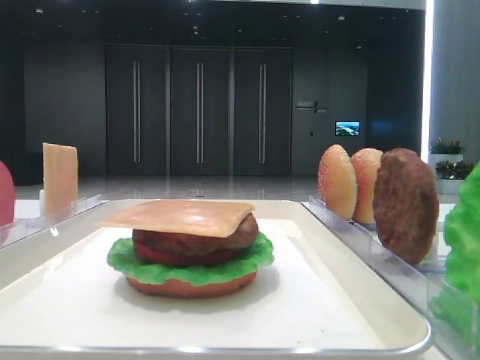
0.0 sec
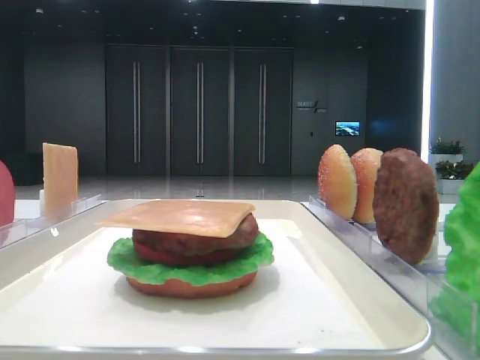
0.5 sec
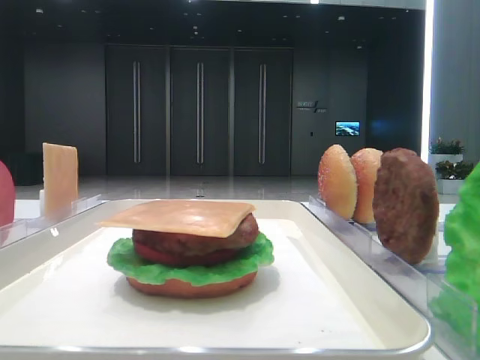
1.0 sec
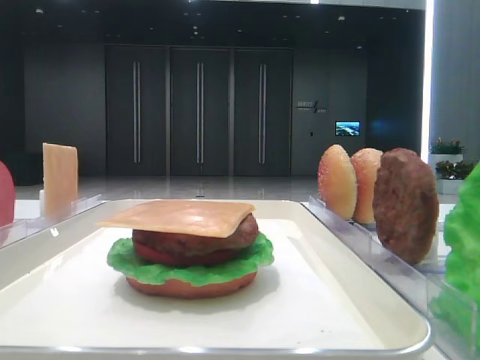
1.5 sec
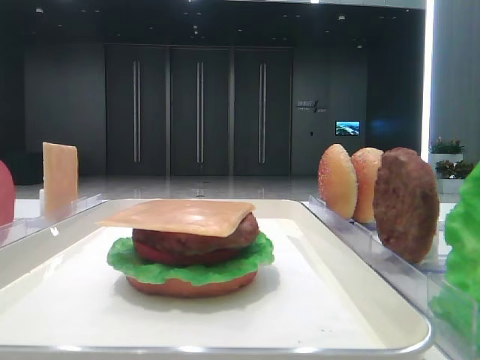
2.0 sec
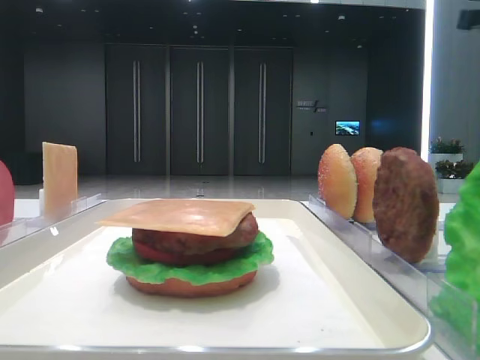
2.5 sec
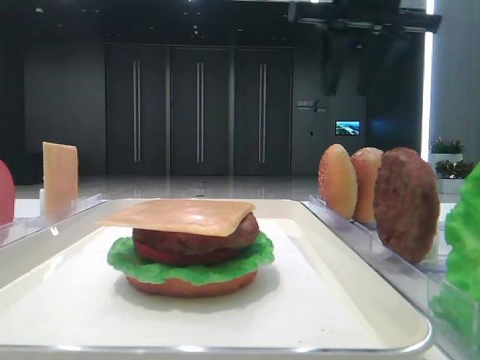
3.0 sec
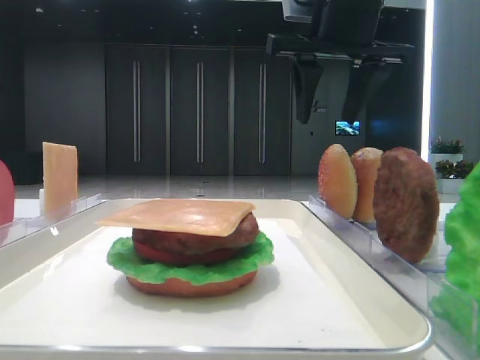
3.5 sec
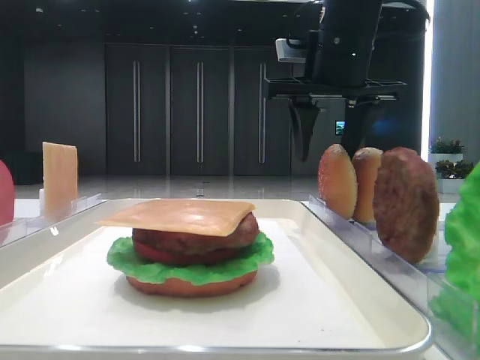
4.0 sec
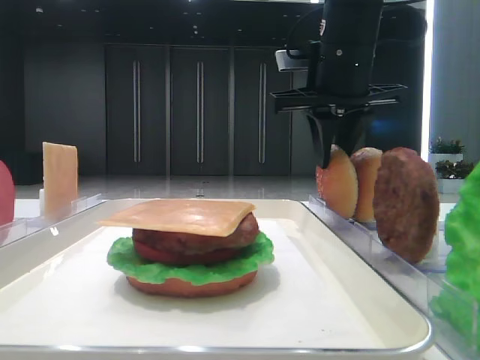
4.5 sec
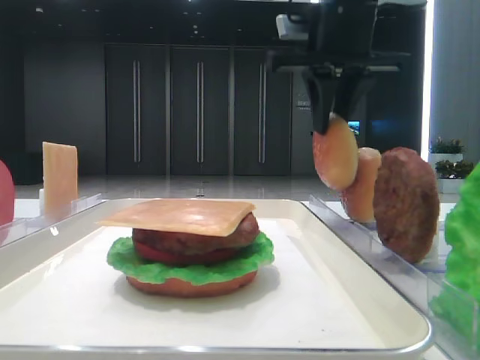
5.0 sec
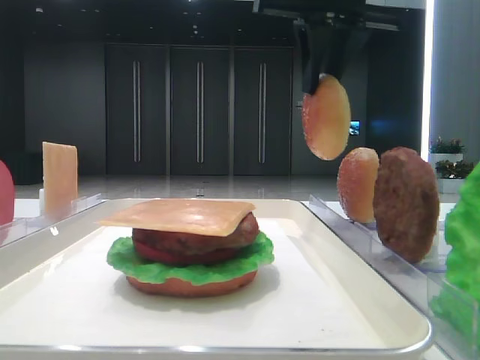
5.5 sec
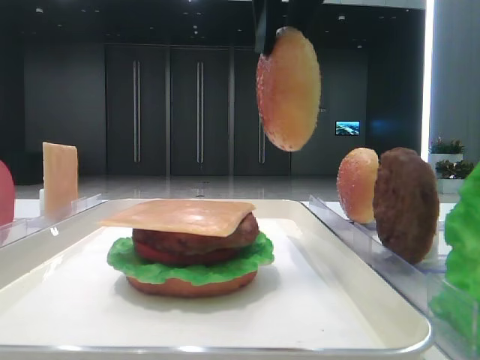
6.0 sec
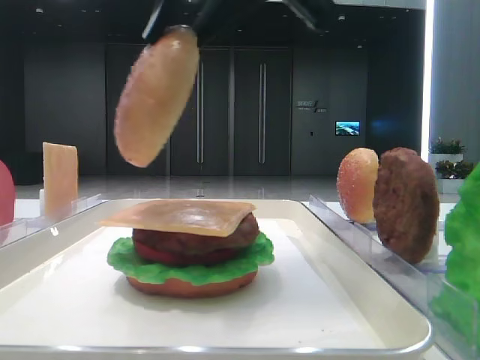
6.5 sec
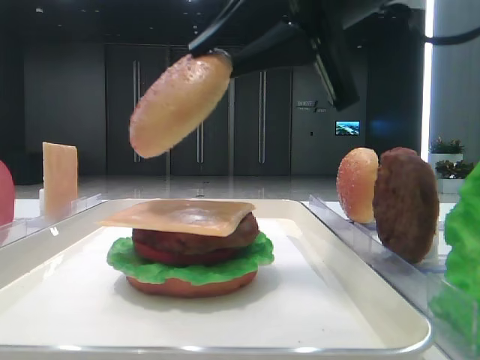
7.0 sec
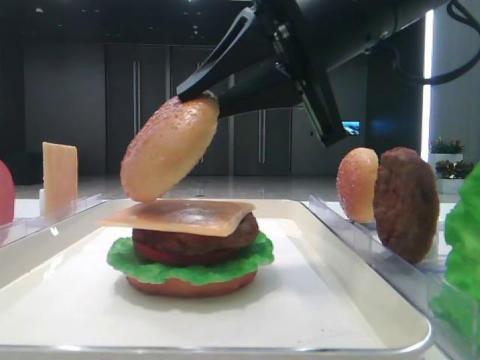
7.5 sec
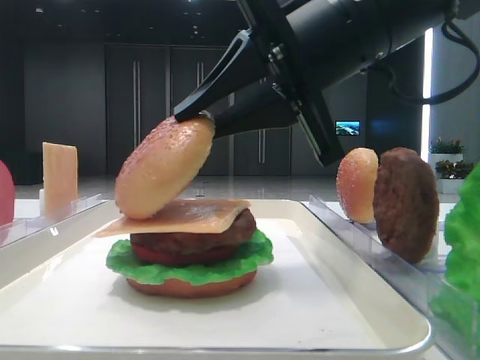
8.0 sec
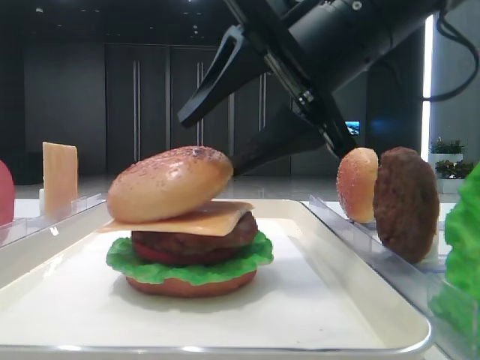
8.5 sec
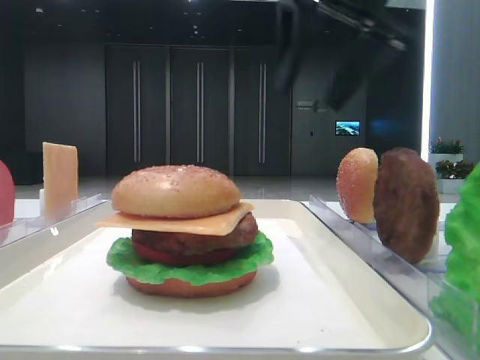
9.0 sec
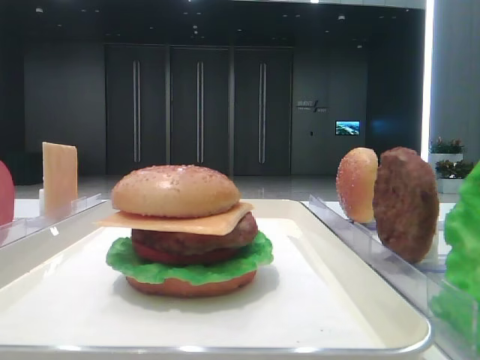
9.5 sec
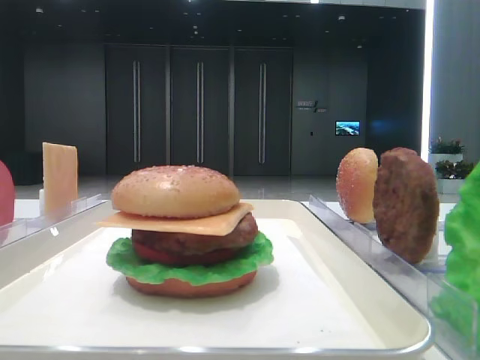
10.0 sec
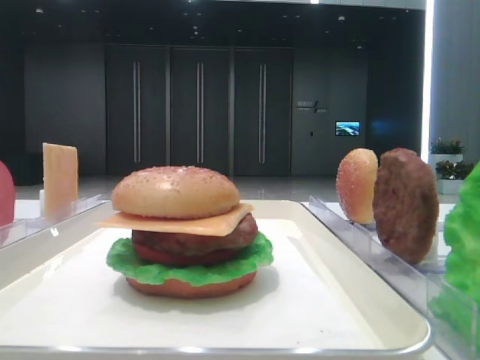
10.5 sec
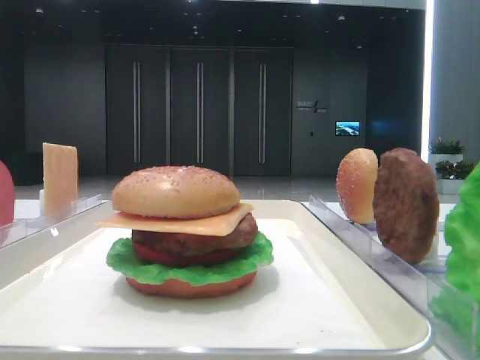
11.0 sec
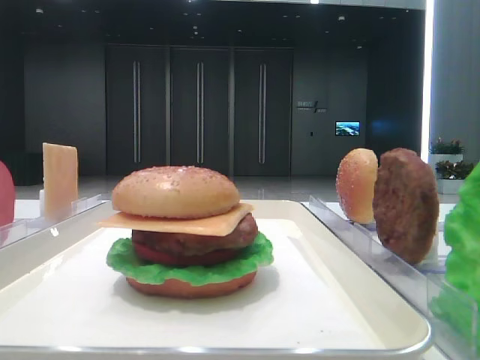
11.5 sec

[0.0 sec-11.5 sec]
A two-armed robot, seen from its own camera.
Step, 0.0 sec to 4.5 sec: Pick up the top bread slice with the right hand.
Step, 5.0 sec to 8.5 sec: Place the top bread slice on the cheese with the right hand.
2.0 sec to 4.0 sec: The right gripper goes about 30 cm forward, to the left and downward.
4.0 sec to 6.0 sec: The right gripper moves backward, upward and to the left, some 15 cm, and closes its fingers.
6.0 sec to 7.5 sec: The right gripper travels downward by approximately 10 cm.
7.5 sec to 9.5 sec: The right gripper travels to the right by about 25 cm, and opens up.
9.5 sec to 11.5 sec: The right gripper goes roughly 35 cm backward.

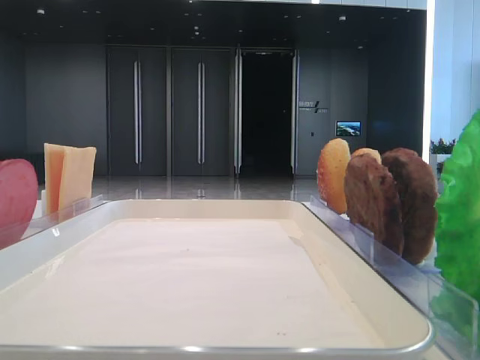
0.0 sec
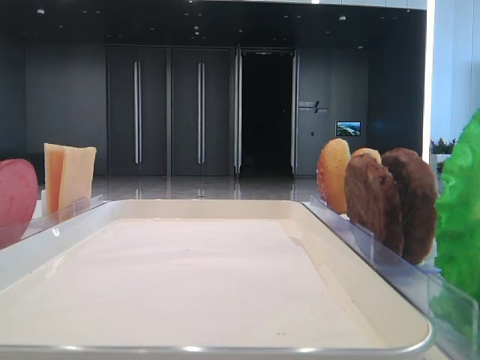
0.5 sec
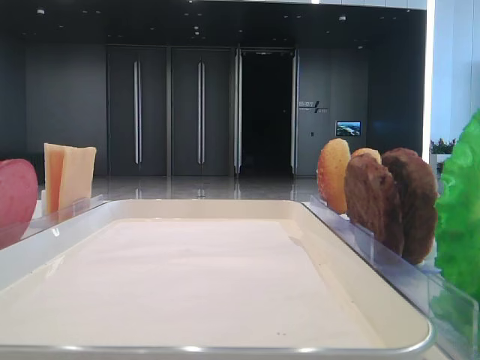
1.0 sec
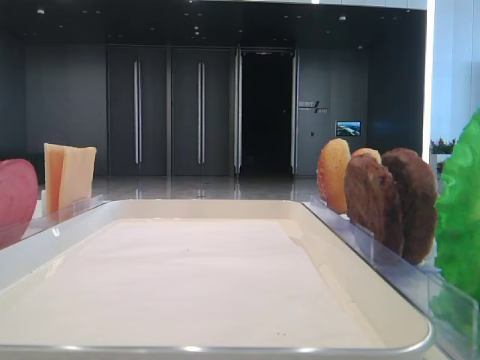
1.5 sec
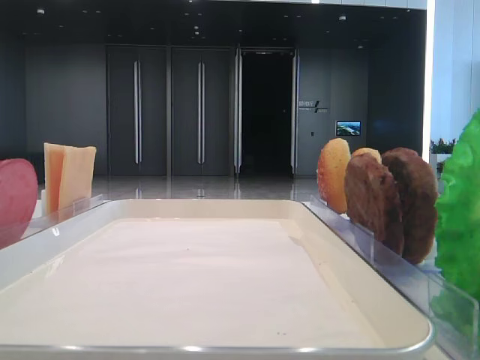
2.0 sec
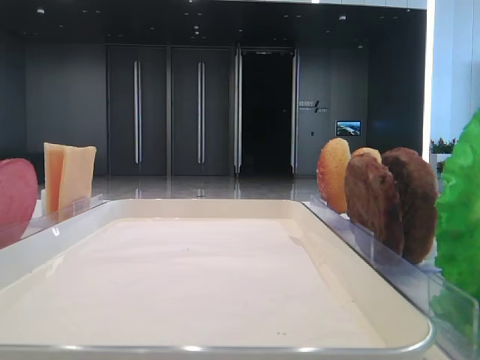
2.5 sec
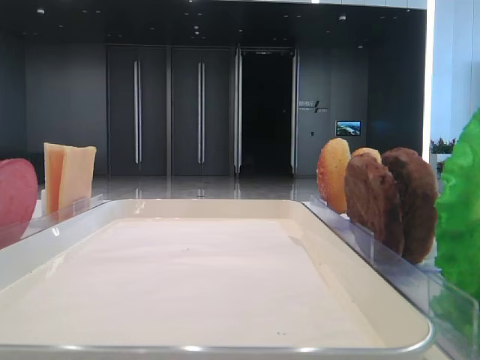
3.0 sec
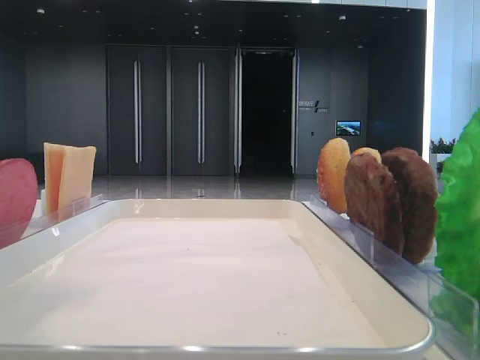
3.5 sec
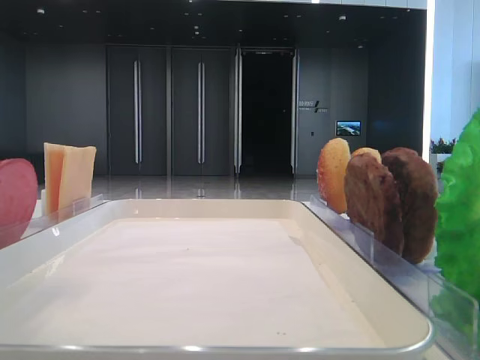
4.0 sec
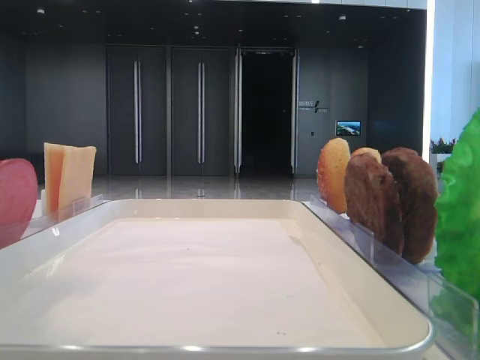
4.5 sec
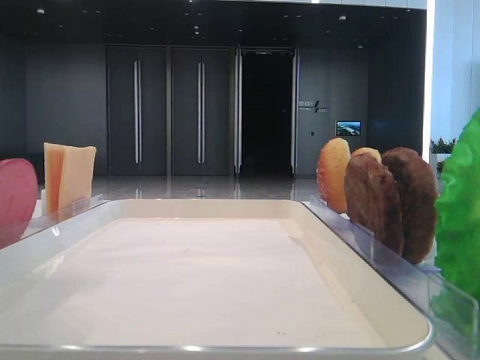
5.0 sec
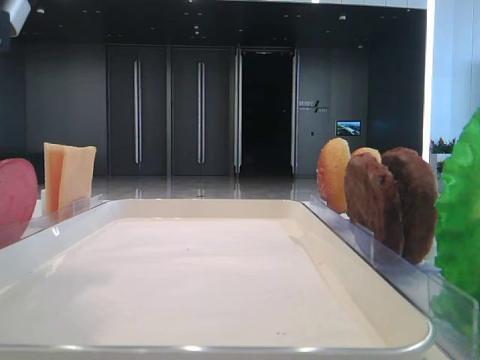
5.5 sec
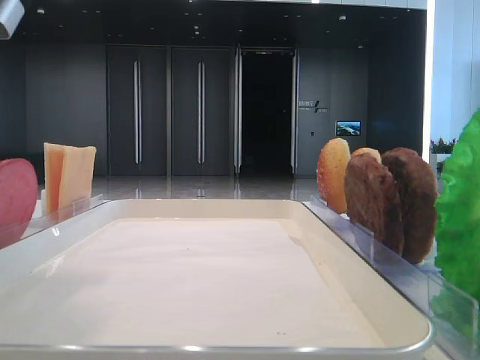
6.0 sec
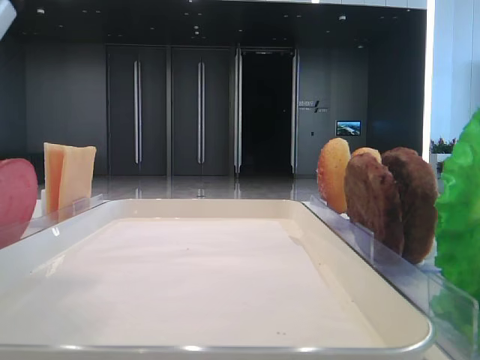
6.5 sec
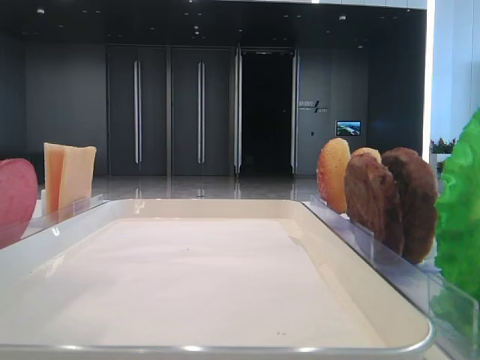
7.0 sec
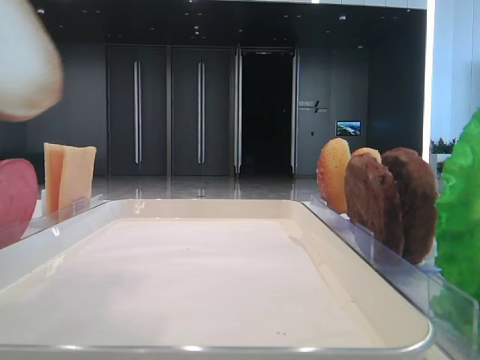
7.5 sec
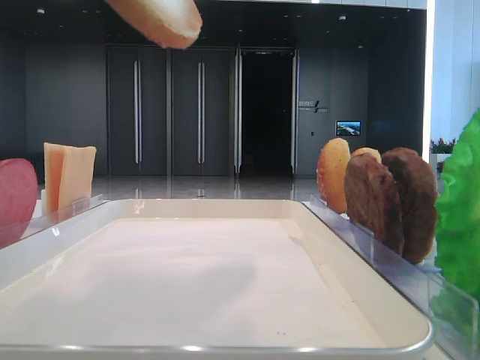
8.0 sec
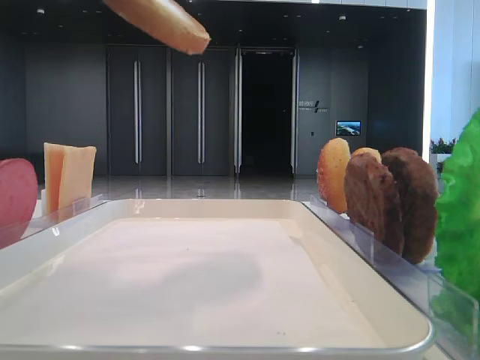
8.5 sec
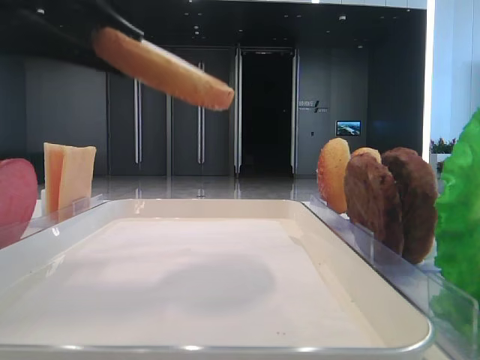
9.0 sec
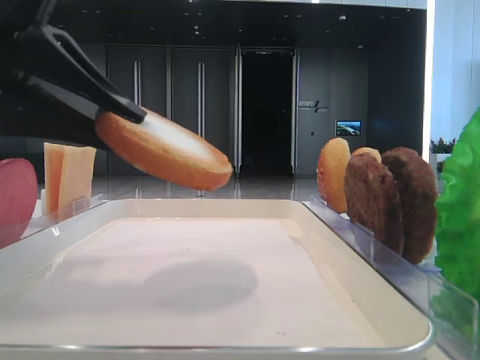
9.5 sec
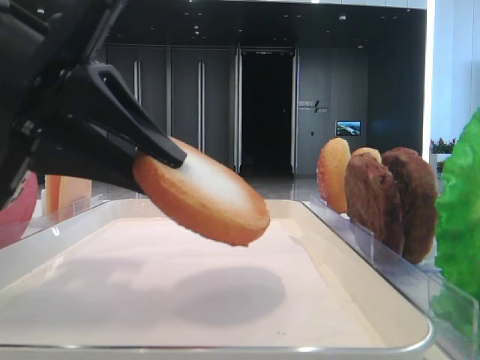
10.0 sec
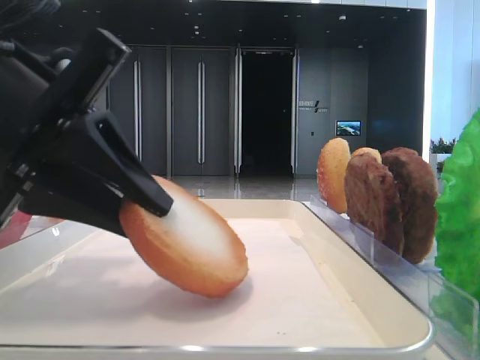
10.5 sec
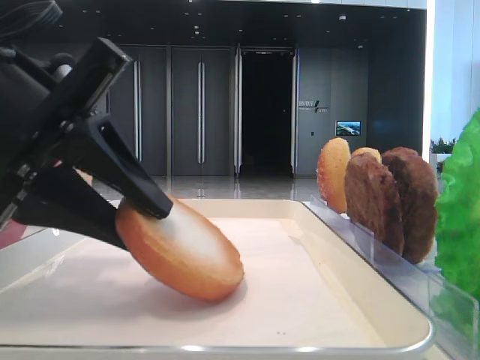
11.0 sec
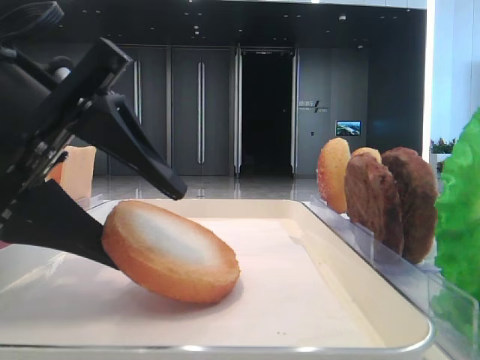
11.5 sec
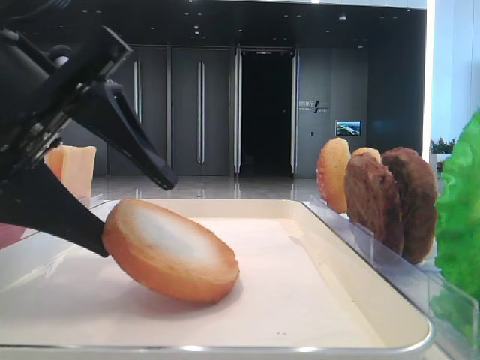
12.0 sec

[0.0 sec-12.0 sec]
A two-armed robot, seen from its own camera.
2.0 sec to 4.0 sec: The left gripper is displaced to the right, forward and downward by about 15 cm.
6.0 sec to 8.0 sec: The left gripper travels upward by approximately 10 cm, and closes its fingers.
8.0 sec to 10.0 sec: The left gripper heads downward, covering approximately 15 cm.
10.0 sec to 12.0 sec: The left gripper opens its fingers.

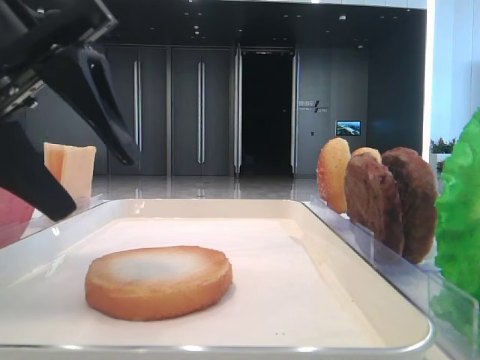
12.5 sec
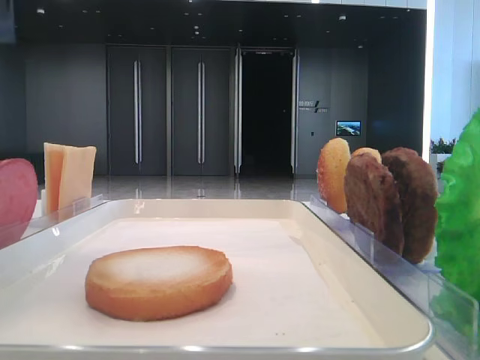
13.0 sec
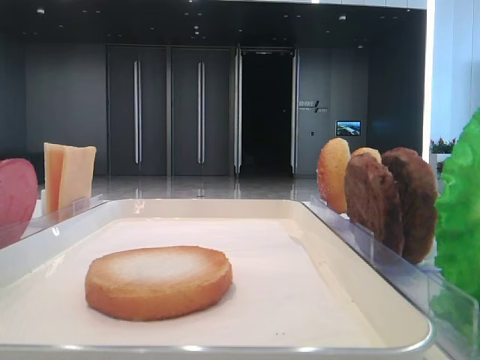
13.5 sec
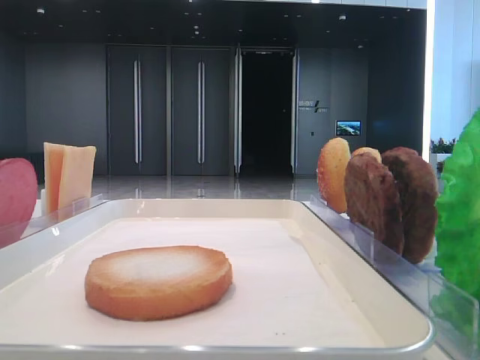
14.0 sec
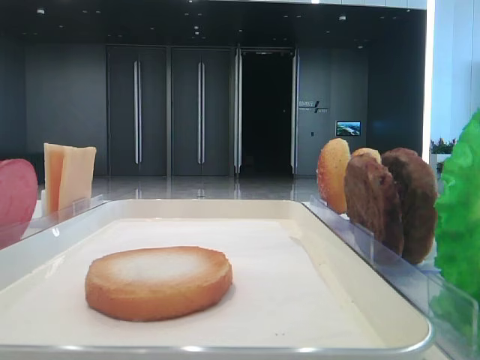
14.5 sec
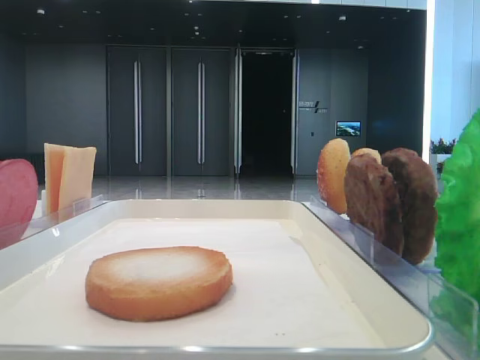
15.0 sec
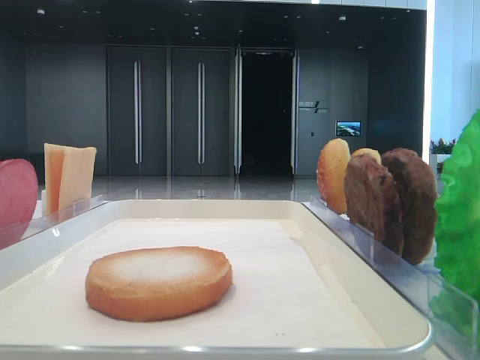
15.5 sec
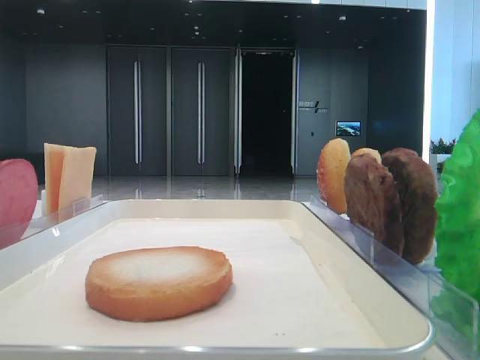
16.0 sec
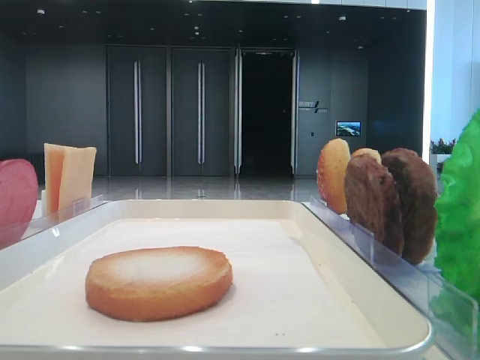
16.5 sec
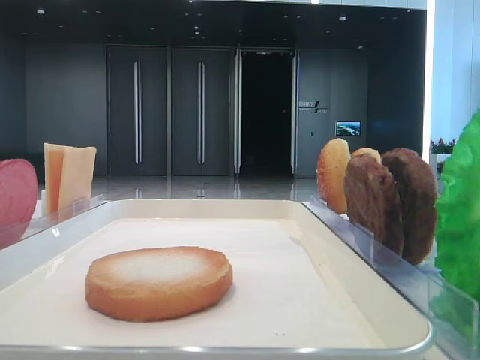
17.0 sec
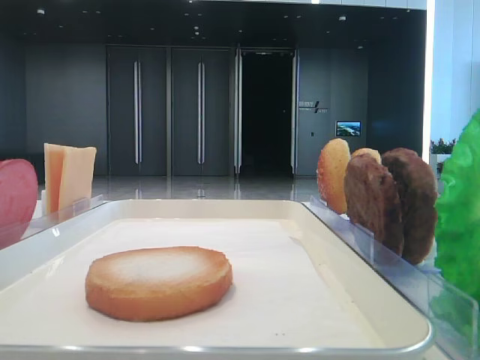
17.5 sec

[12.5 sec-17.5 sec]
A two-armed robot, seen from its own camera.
12.5 sec to 15.0 sec: The left gripper goes some 30 cm backward, to the left and upward.
